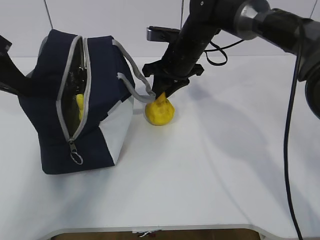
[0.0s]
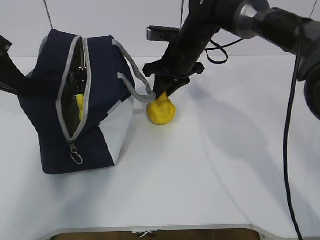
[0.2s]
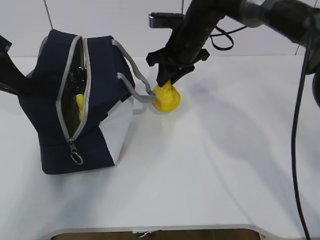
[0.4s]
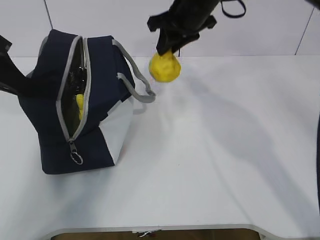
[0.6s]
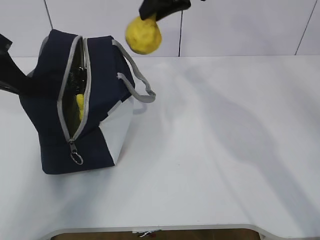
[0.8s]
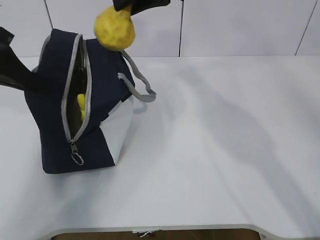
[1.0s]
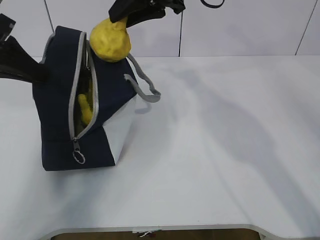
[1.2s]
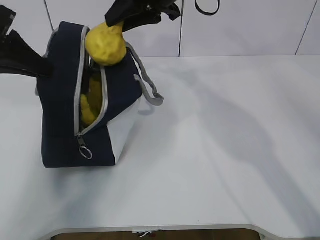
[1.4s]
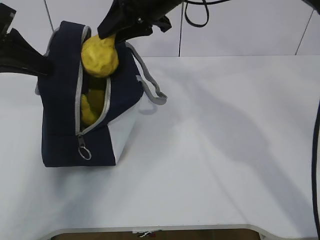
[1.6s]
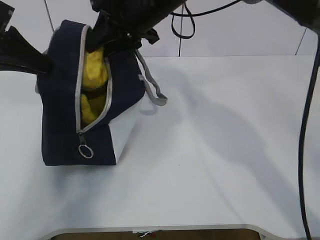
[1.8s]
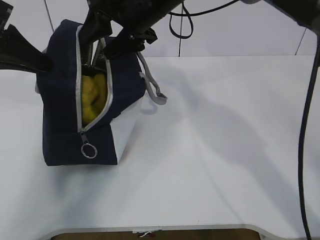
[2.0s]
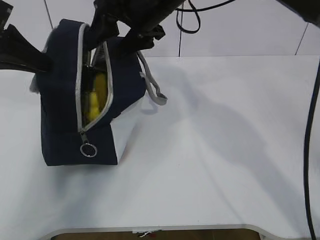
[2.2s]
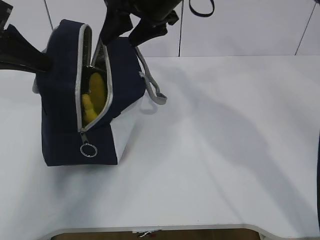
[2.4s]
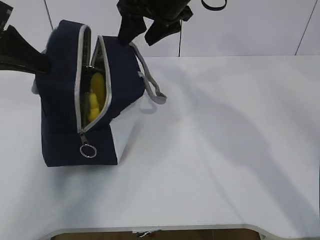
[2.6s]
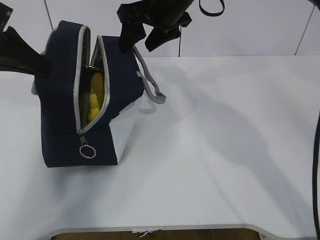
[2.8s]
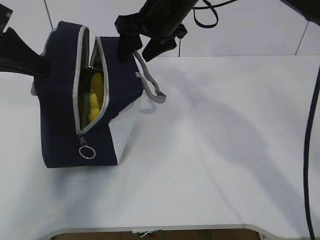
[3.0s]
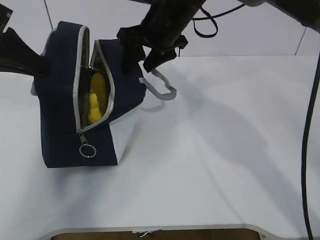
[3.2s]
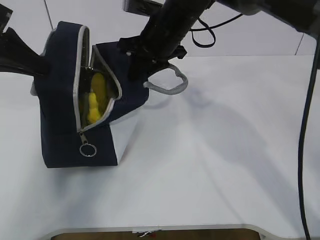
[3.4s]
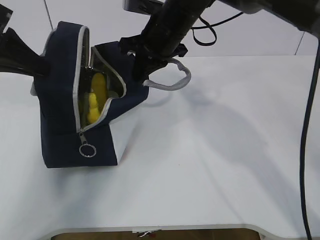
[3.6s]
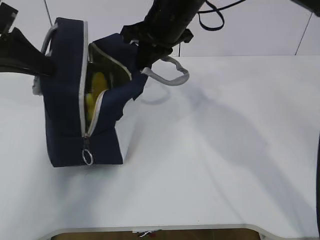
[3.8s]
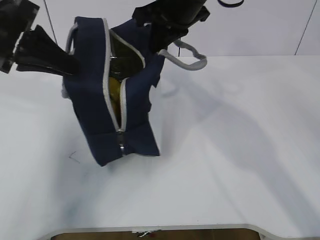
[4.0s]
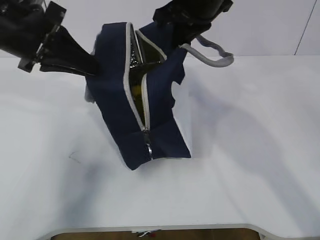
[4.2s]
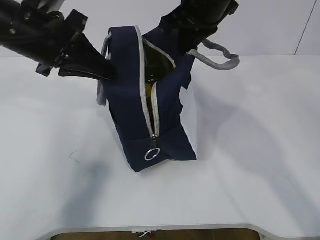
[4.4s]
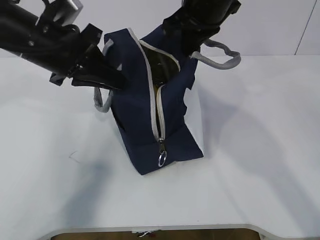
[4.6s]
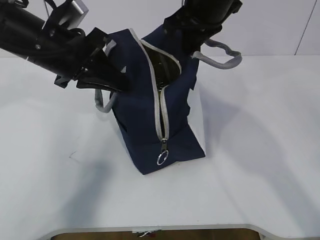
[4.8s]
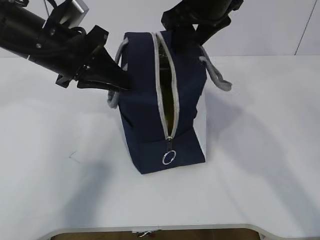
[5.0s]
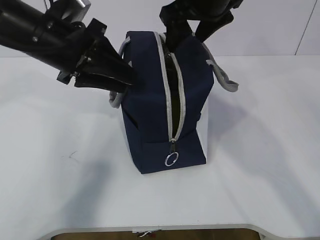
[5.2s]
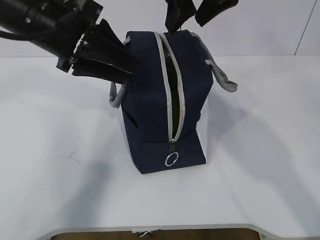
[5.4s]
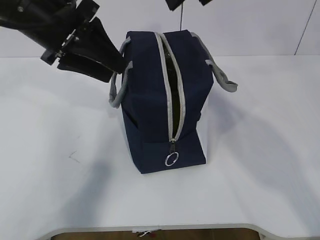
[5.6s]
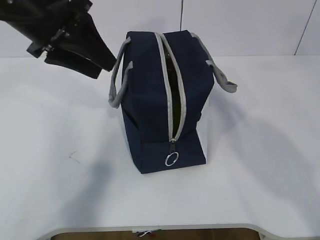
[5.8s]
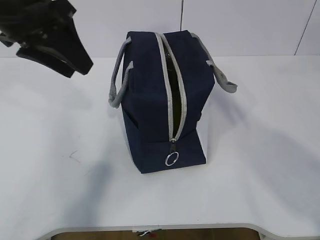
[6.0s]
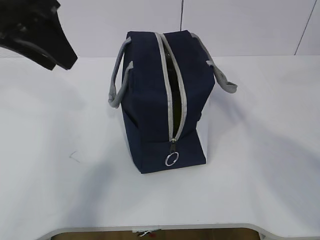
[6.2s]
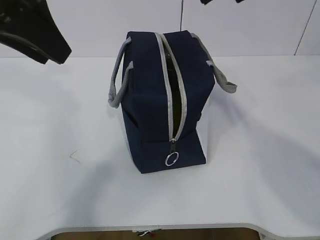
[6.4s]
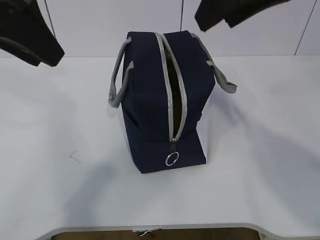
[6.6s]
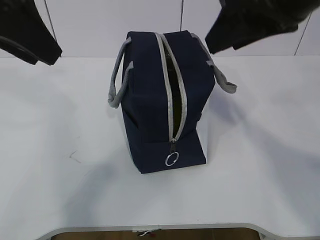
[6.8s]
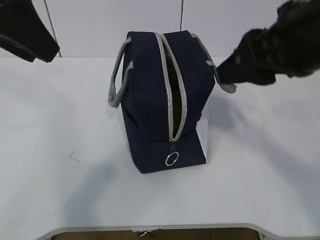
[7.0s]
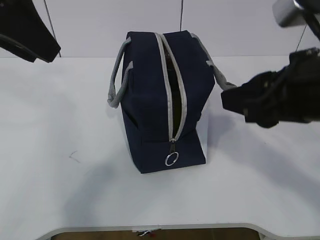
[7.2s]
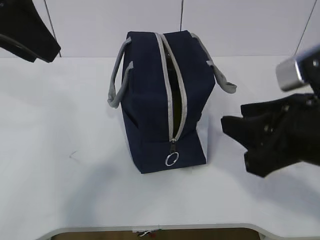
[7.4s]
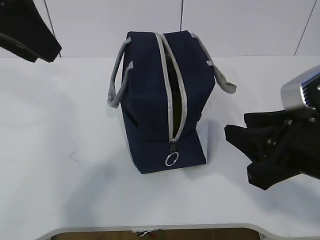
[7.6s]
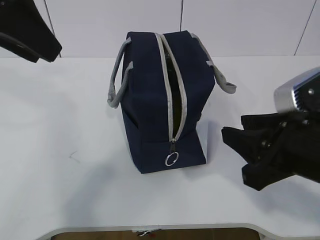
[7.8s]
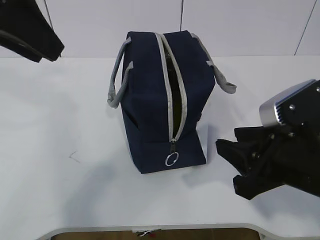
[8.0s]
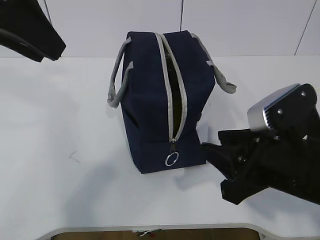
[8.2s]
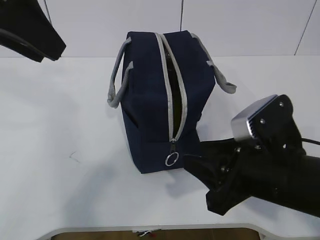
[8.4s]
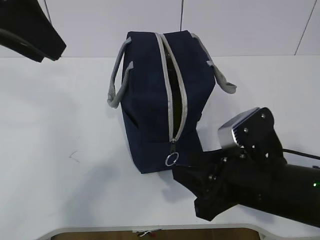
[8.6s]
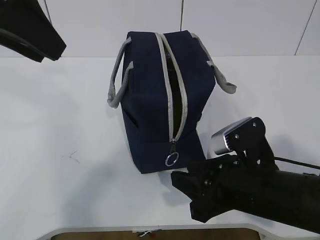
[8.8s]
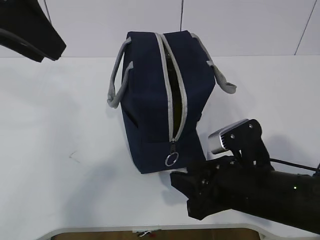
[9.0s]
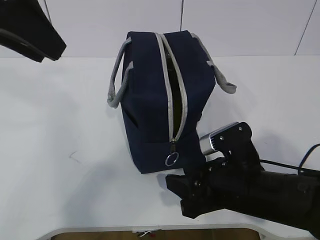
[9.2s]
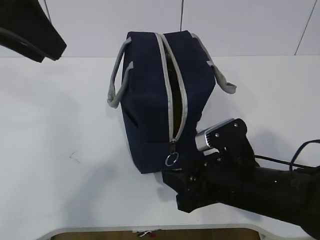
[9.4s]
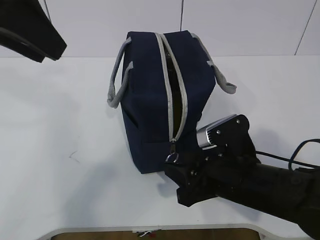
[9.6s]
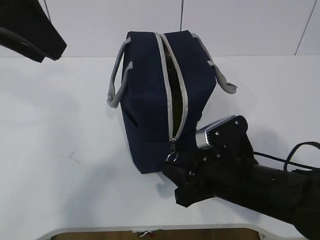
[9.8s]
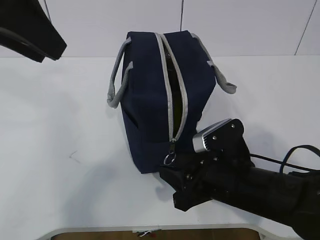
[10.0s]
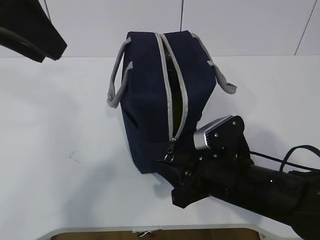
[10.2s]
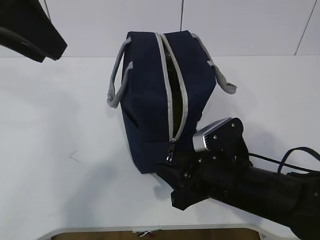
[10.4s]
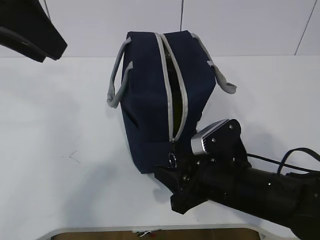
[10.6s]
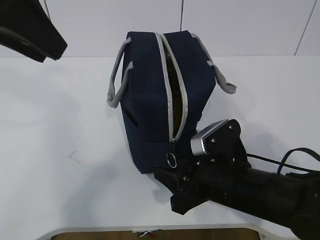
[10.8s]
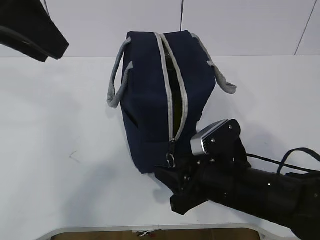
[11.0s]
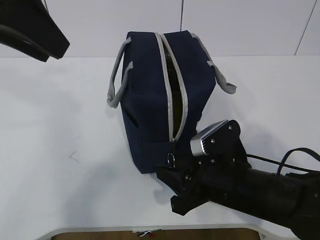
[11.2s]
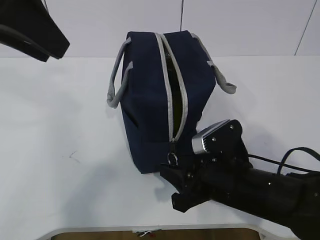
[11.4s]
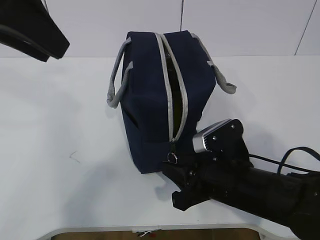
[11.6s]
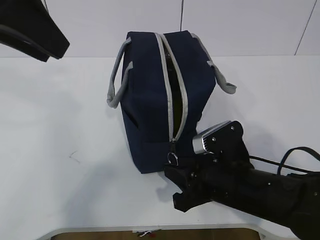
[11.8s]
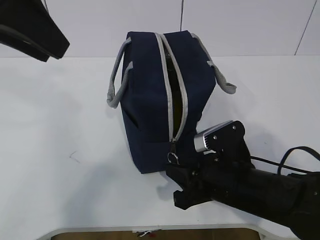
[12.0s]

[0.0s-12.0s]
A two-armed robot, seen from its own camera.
0.0s to 1.6s: The right gripper is displaced upward by roughly 10 cm.
1.6s to 3.0s: The right gripper opens.
3.0s to 4.4s: The left gripper is displaced to the right by roughly 10 cm; the right gripper is displaced to the right by approximately 5 cm, and closes.
4.4s to 6.0s: The left gripper is displaced upward by approximately 5 cm, and opens up, while the right gripper moves upward and backward, some 15 cm, and opens.
6.0s to 7.6s: The right gripper moves downward and backward, about 25 cm, while the left gripper shifts approximately 5 cm backward.
7.6s to 9.0s: The right gripper travels downward by some 10 cm.
9.0s to 10.4s: The grippers move only a little.
10.4s to 12.0s: The right gripper closes up.

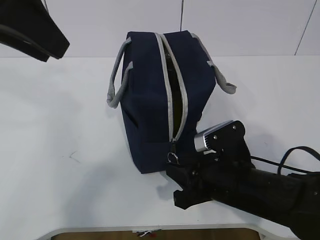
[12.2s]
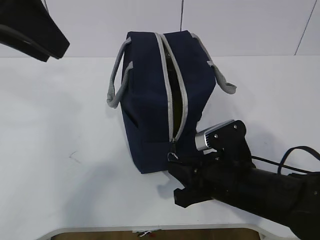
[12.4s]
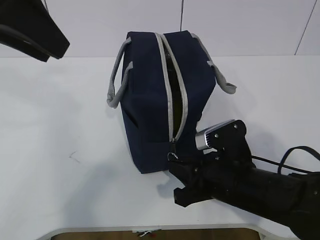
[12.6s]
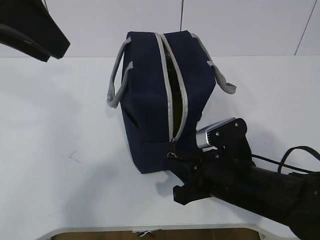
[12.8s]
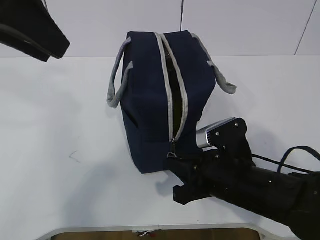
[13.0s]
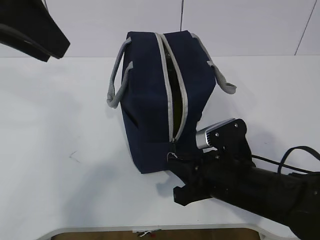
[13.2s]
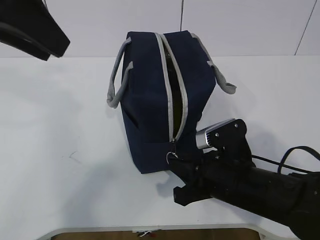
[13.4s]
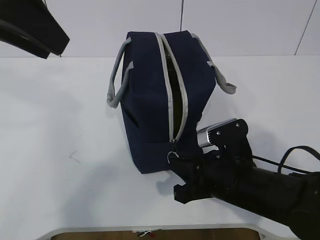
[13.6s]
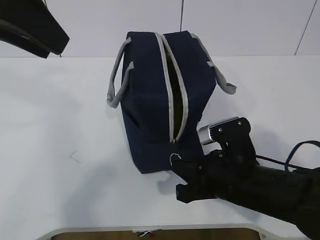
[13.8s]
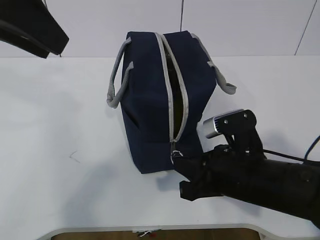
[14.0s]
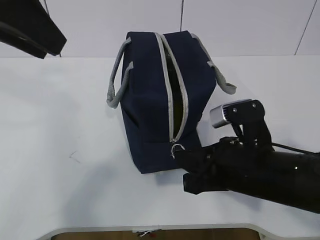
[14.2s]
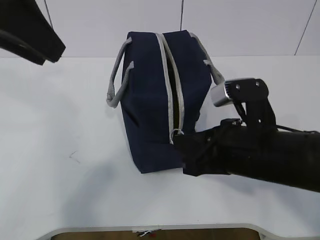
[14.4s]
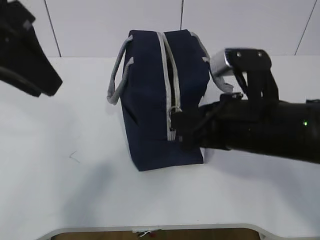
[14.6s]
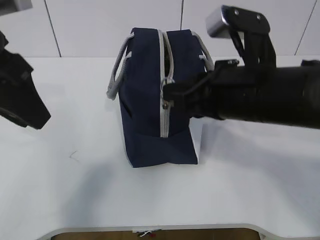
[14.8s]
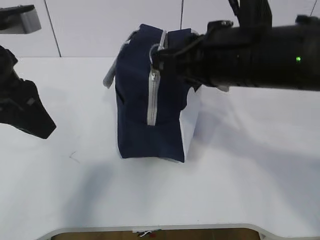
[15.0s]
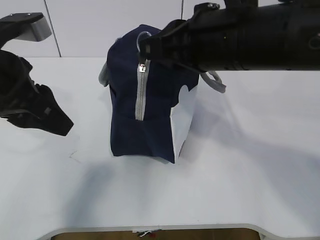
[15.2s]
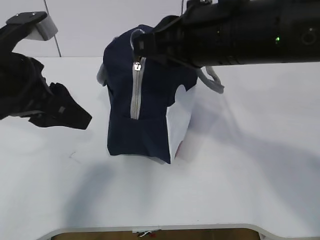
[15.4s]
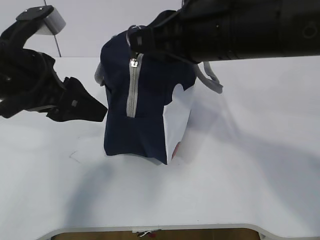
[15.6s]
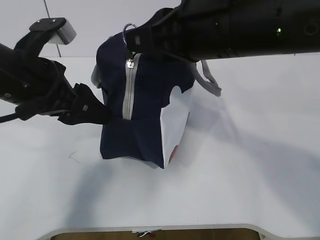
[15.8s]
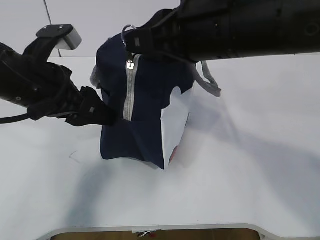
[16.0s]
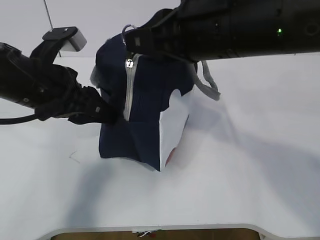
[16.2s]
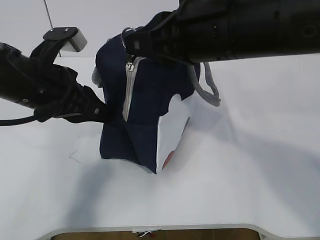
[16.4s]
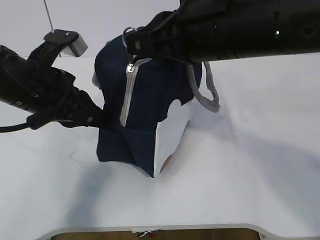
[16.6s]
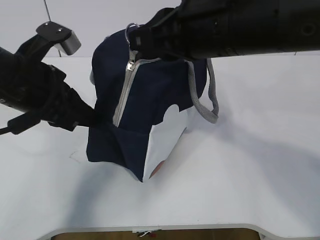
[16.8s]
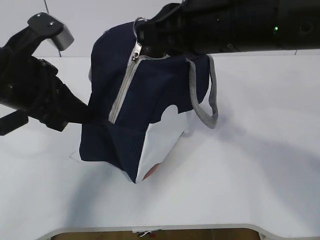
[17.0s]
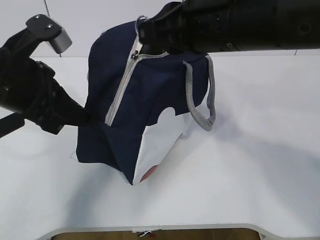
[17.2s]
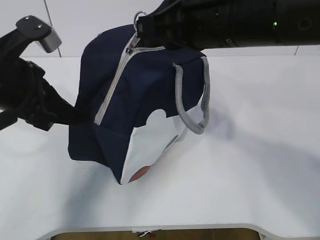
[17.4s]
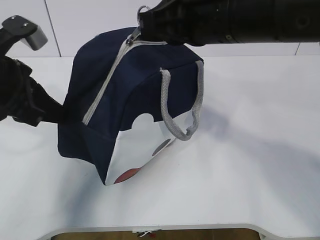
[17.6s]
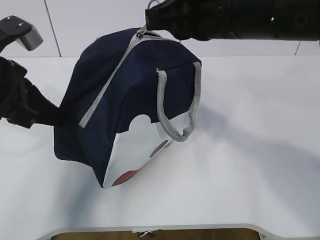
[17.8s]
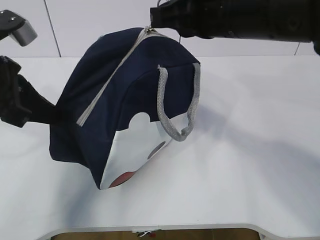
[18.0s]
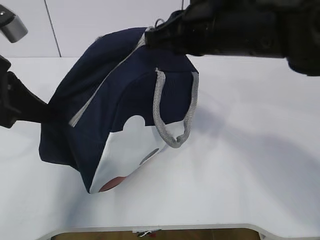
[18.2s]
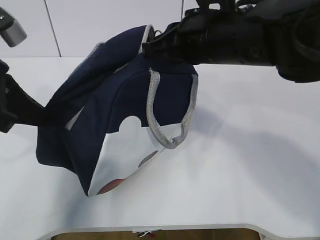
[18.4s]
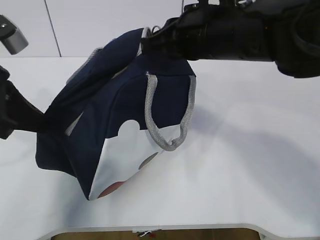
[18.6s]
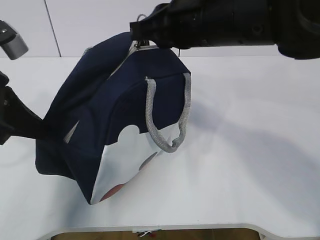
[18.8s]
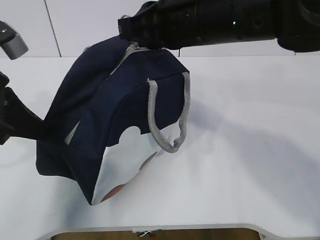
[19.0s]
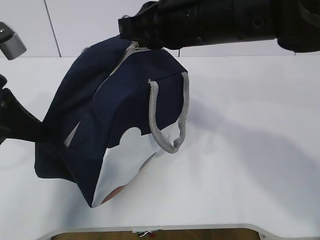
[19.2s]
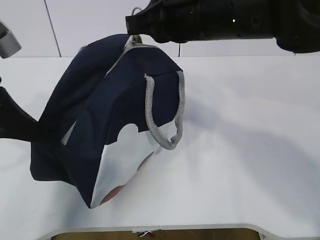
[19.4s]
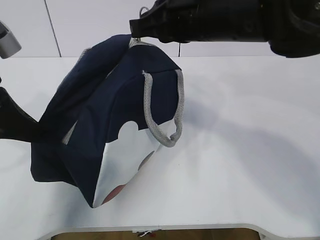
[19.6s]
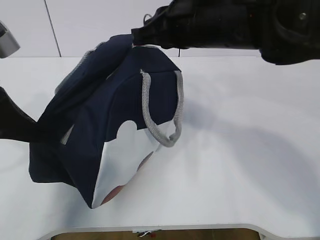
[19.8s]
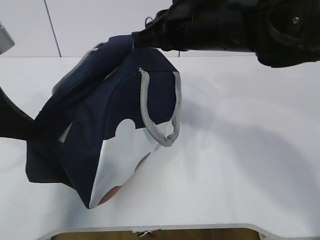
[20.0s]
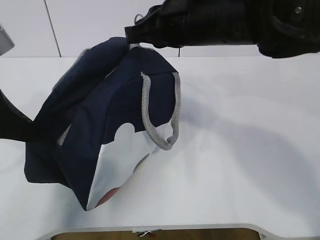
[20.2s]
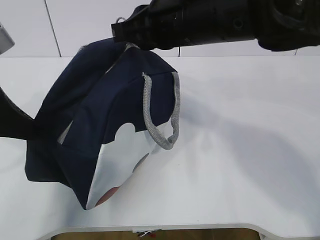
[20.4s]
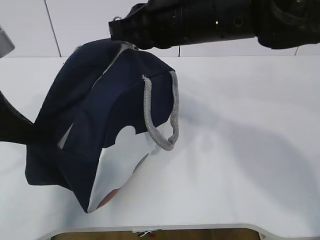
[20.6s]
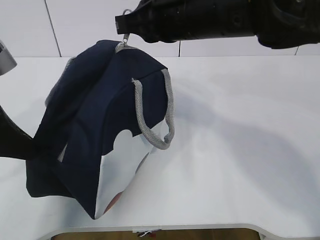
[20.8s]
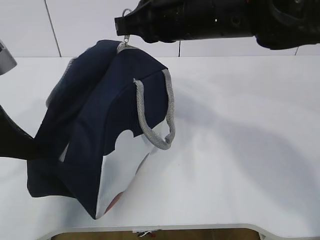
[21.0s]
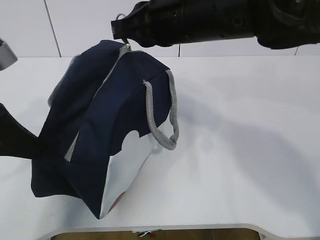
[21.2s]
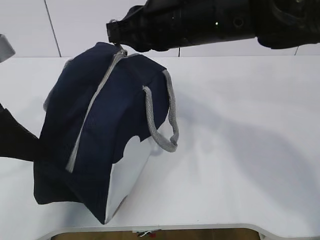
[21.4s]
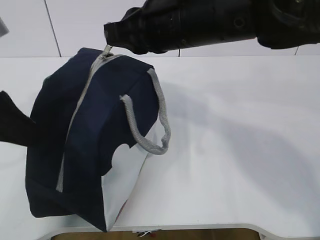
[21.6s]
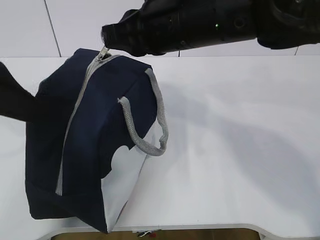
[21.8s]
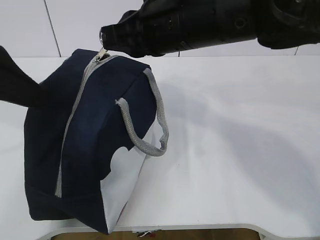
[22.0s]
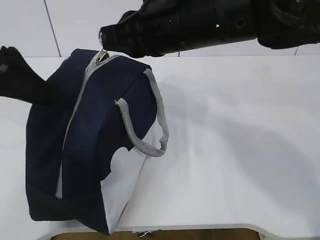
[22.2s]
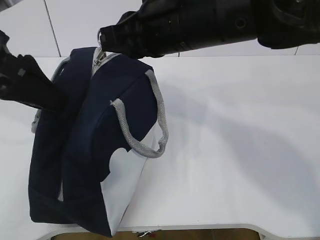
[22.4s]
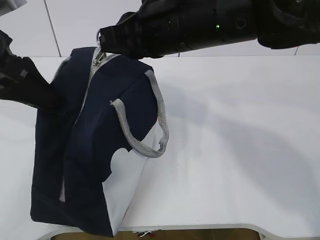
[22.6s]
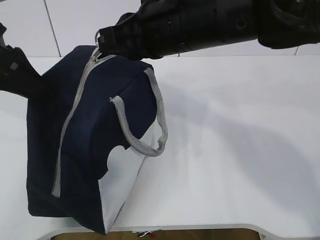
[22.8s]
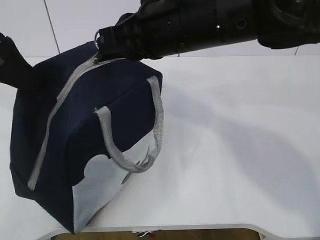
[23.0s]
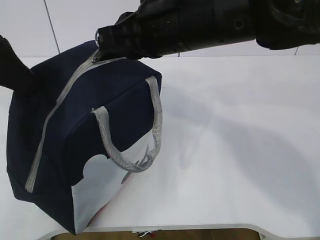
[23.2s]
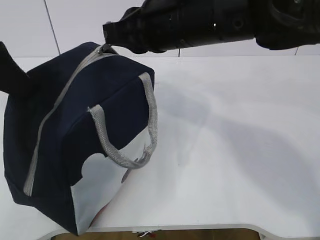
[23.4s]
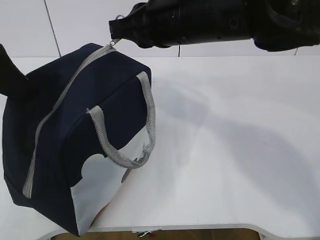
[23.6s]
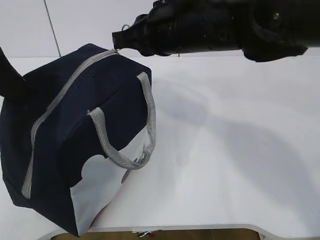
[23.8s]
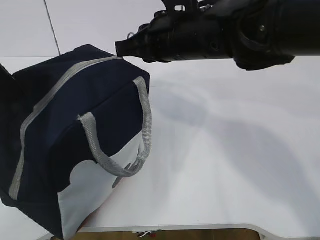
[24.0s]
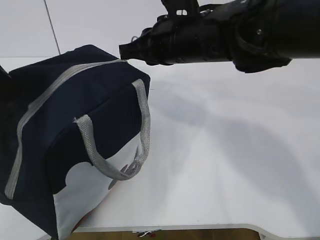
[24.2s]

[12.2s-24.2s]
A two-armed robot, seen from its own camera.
Step, 13.8s to 16.8s: Grab the lunch bag with your left hand.
Step, 17.0s to 19.8s: Pull the zipper with your right hand.
Step, 20.0s to 20.8s: Grab the lunch bag with your left hand.
12.2s to 13.8s: The right gripper closes.
13.8s to 15.2s: The right gripper moves upward, about 20 cm. The left gripper shifts about 10 cm downward.
15.2s to 16.6s: The left gripper ends up roughly 5 cm from where it was, and closes its fingers.
16.6s to 18.2s: The left gripper moves to the left, about 5 cm.
18.2s to 21.2s: The grippers stay close to where they were, moving slightly.
21.2s to 22.6s: The left gripper moves about 5 cm, and opens up.
22.6s to 24.2s: The right gripper changes place by approximately 5 cm, while the left gripper closes its fingers.
